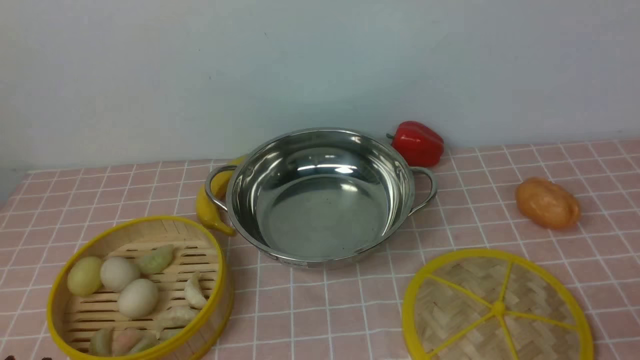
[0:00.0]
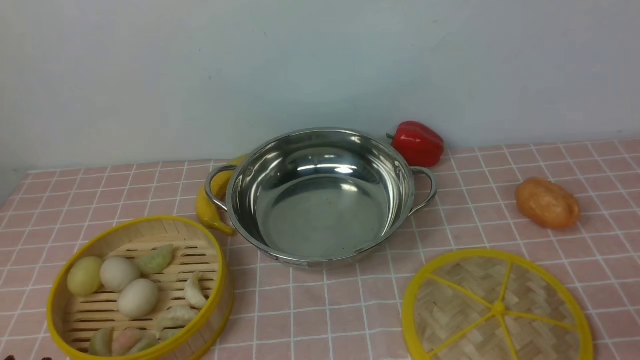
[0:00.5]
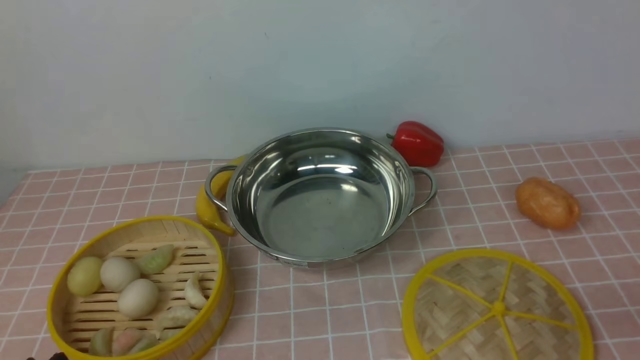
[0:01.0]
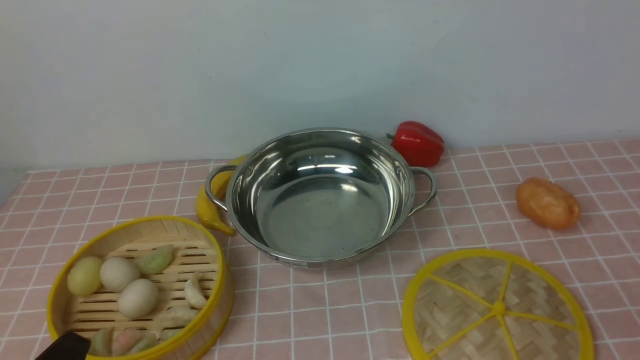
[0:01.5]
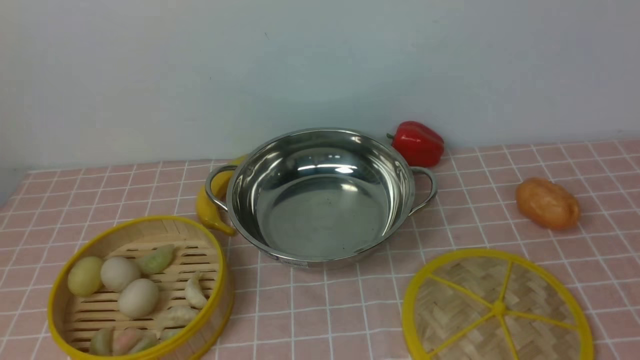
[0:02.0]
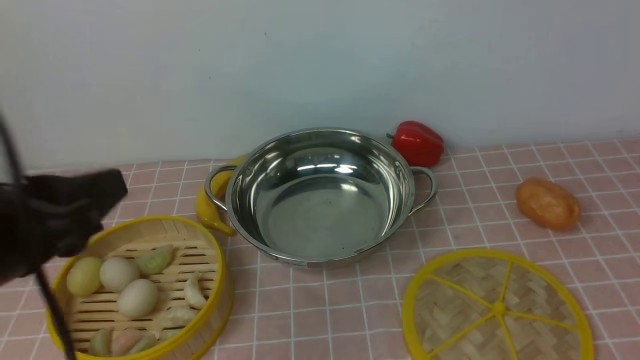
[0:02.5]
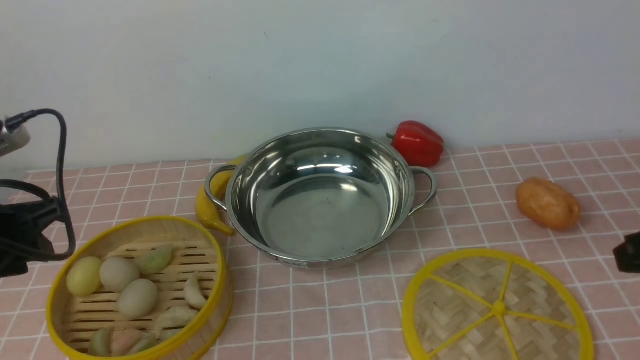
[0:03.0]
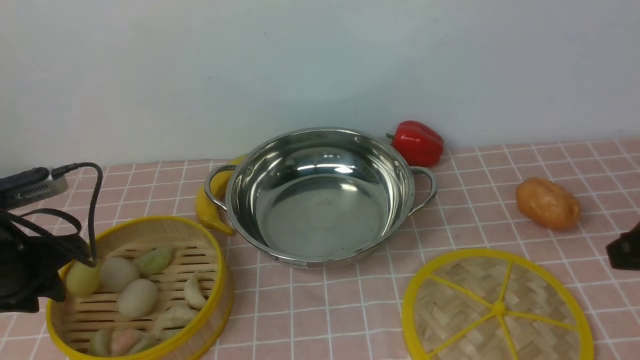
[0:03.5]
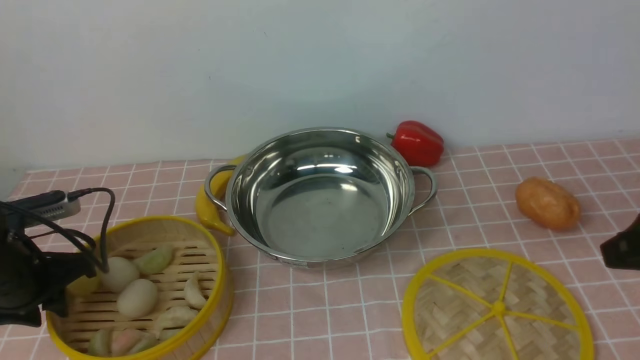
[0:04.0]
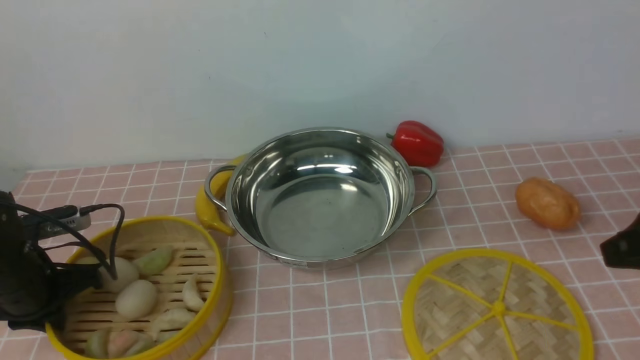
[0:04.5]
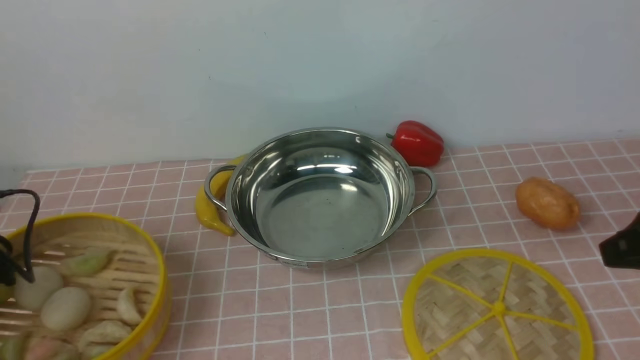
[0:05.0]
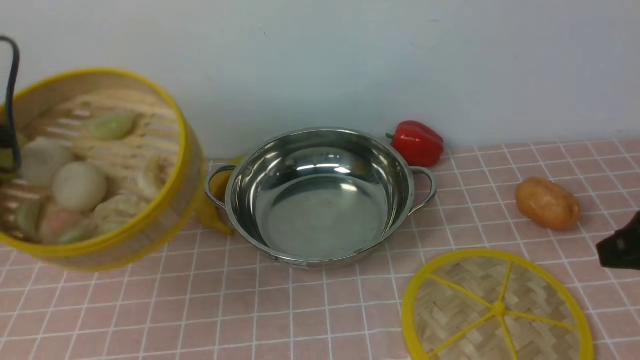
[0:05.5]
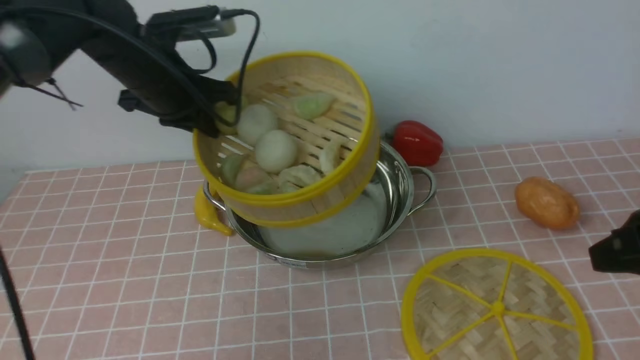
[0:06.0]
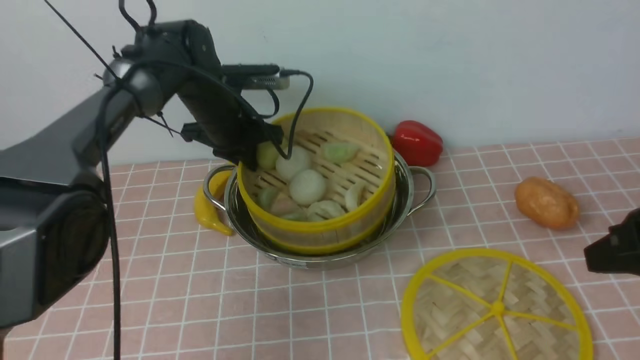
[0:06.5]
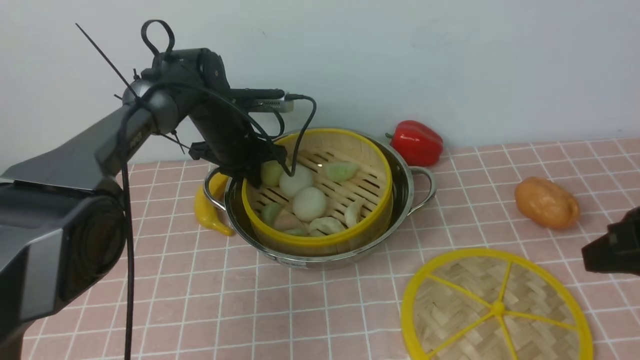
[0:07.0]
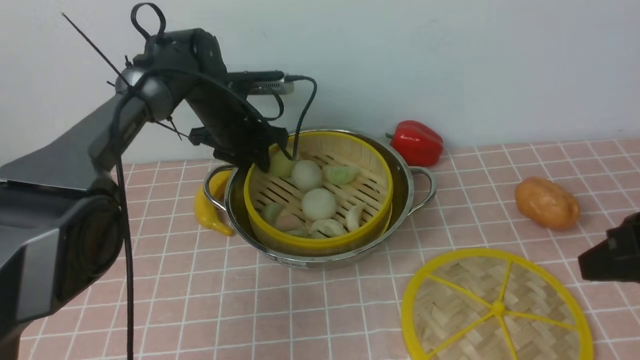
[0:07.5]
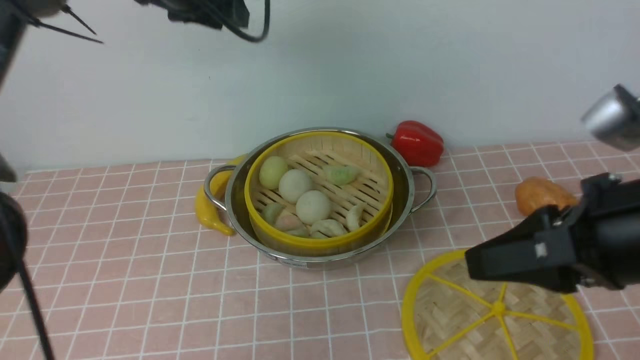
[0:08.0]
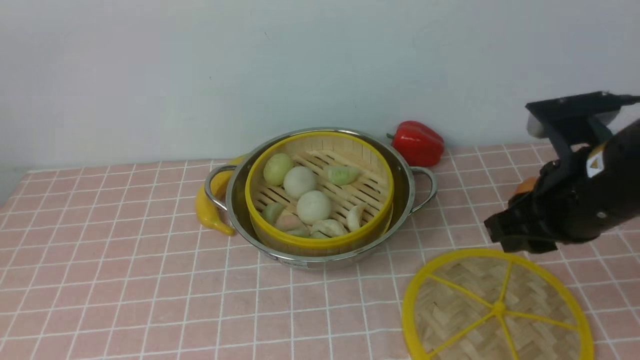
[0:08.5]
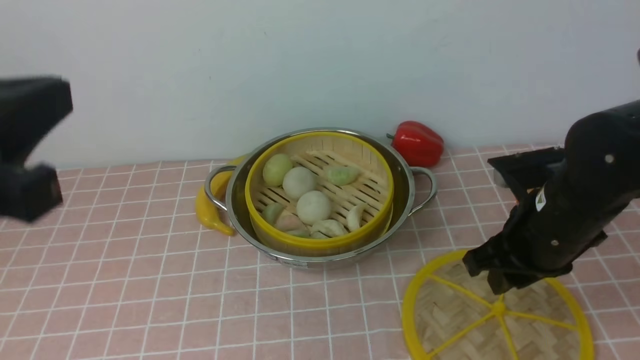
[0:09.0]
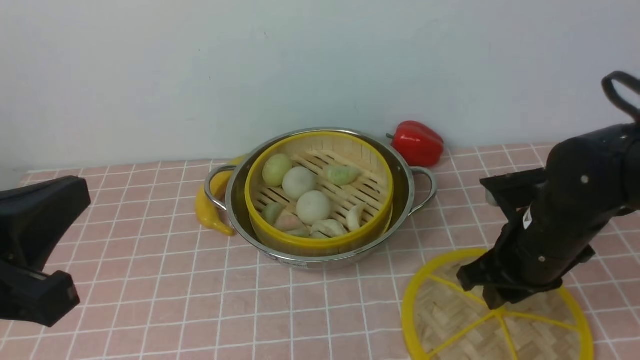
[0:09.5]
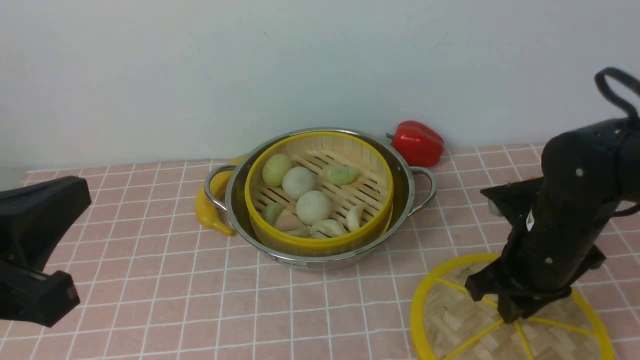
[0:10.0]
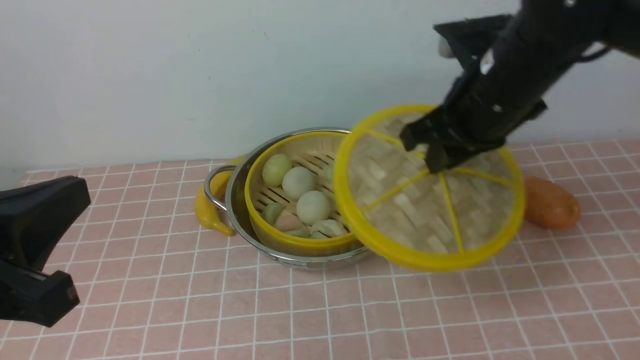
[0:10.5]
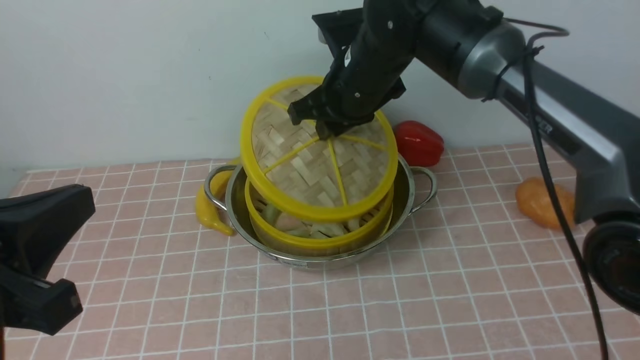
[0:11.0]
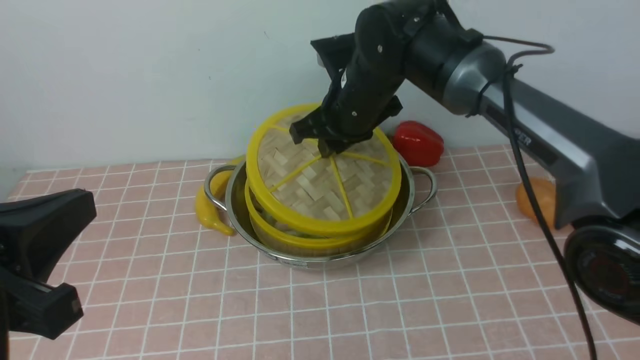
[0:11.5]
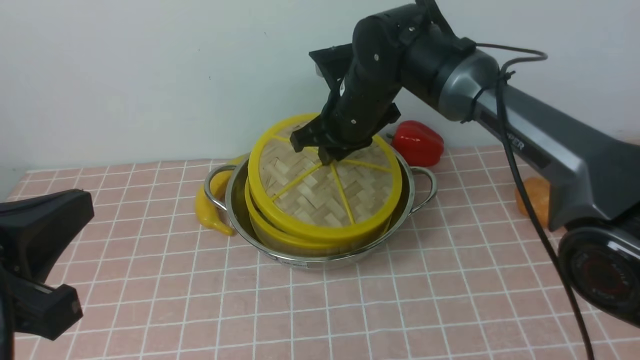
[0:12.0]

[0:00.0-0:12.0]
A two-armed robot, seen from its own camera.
Task of the whole recording: place the steamer in the pot on the pink tablecloth, and put the lid on the steamer.
Step, 0:00.0 to 0:04.5: use the left arm to lift the steamer closest to it.
Step, 0:05.0 to 0:07.5: use the left arm to put the steamer into the iron steamer pot in the middle.
Step, 0:08.0 to 0:10.0: use the right arm to lift the lid of the steamer.
0:02.0 to 0:04.0: The right gripper goes approximately 15 cm forward. Meanwhile the left gripper goes about 25 cm forward and downward.
0:04.0 to 0:06.0: The left gripper moves forward, upward and to the right, some 20 cm, and closes up.
0:06.0 to 0:08.0: The right gripper shifts roughly 5 cm to the left. The left gripper moves to the right, some 5 cm, goes downward and returns, roughly 15 cm each way, and opens.
0:08.0 to 0:10.0: The left gripper travels backward by roughly 35 cm, and closes its fingers; the right gripper travels downward and forward by approximately 15 cm.
0:10.0 to 0:12.0: The right gripper is displaced to the left and forward by roughly 20 cm.

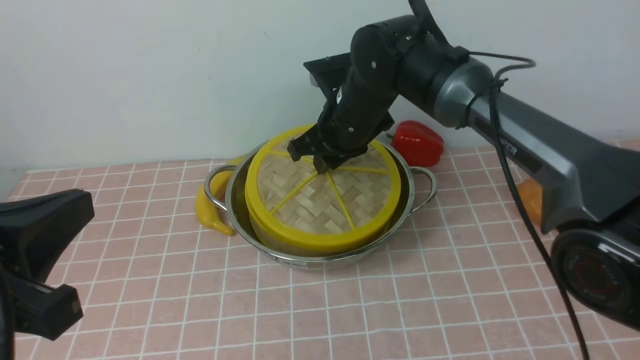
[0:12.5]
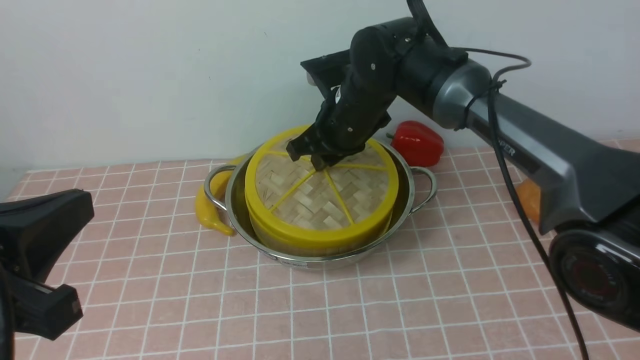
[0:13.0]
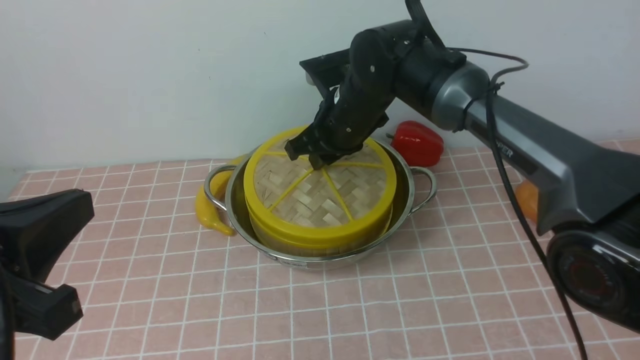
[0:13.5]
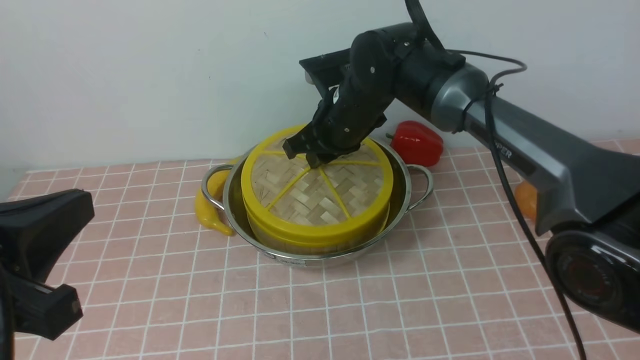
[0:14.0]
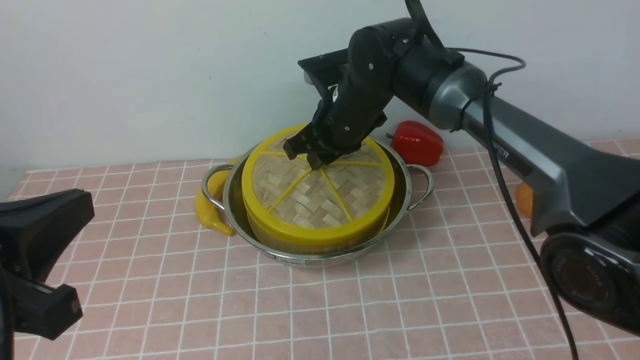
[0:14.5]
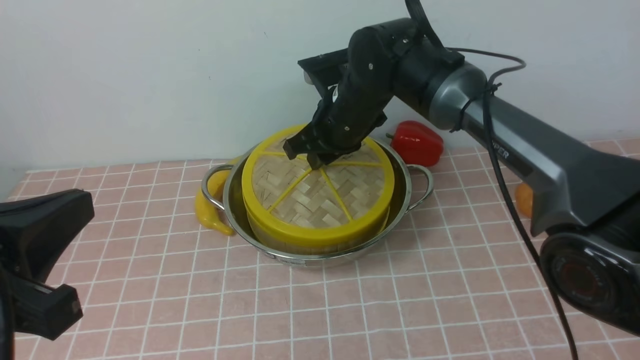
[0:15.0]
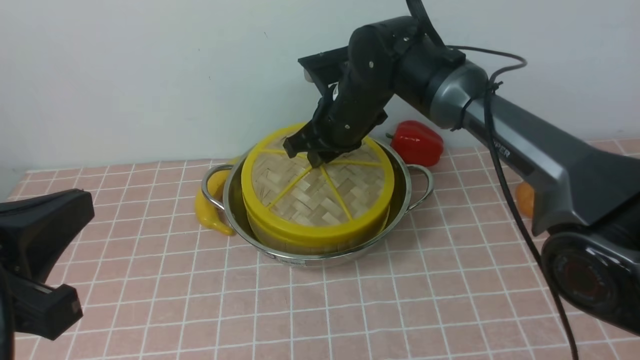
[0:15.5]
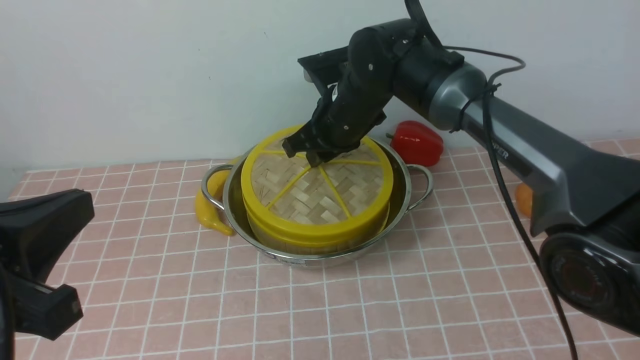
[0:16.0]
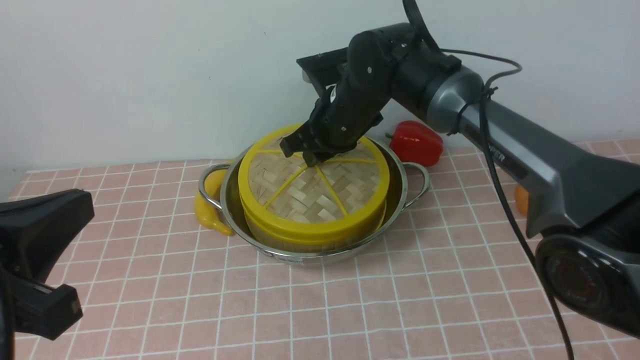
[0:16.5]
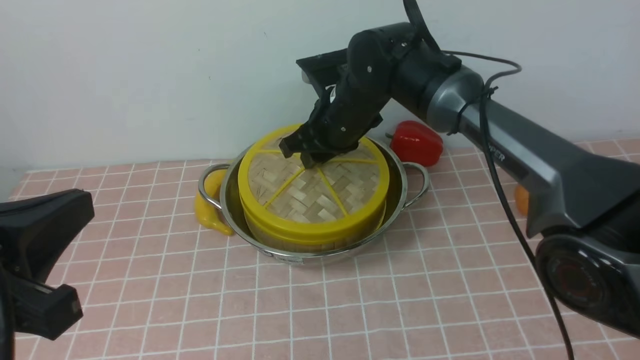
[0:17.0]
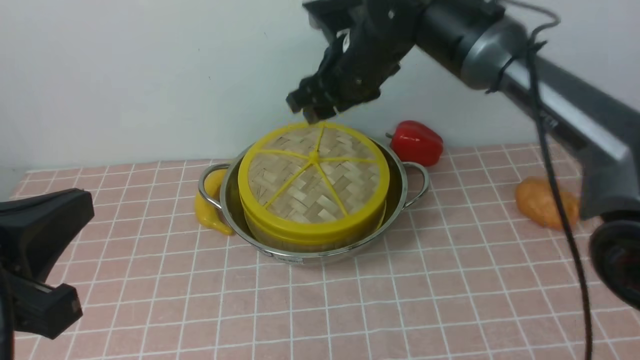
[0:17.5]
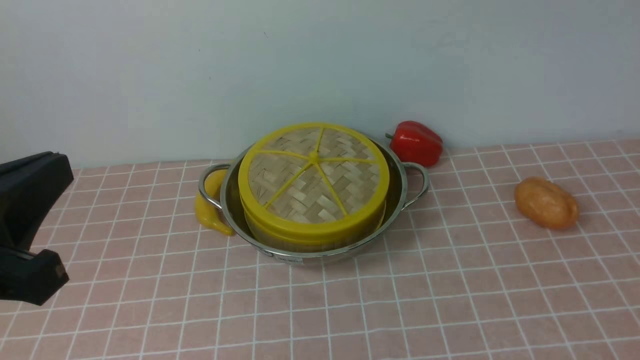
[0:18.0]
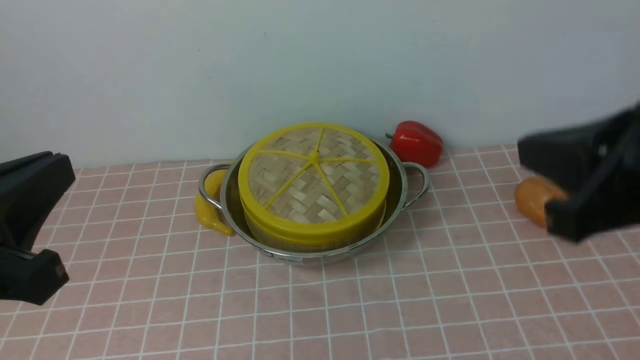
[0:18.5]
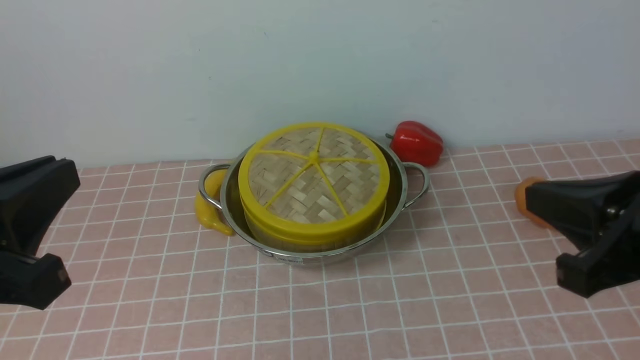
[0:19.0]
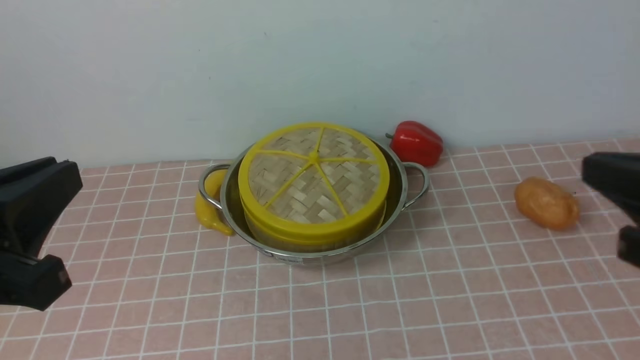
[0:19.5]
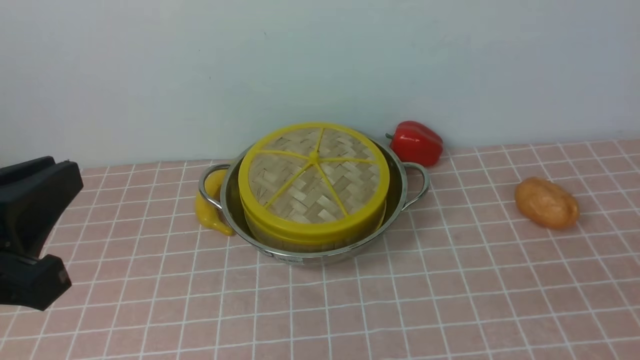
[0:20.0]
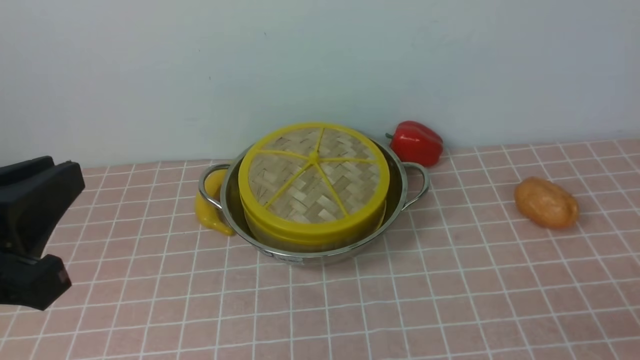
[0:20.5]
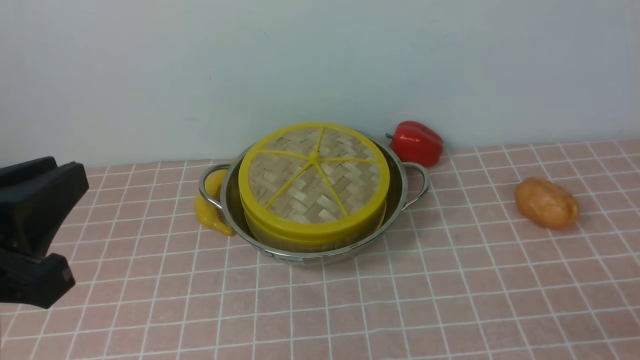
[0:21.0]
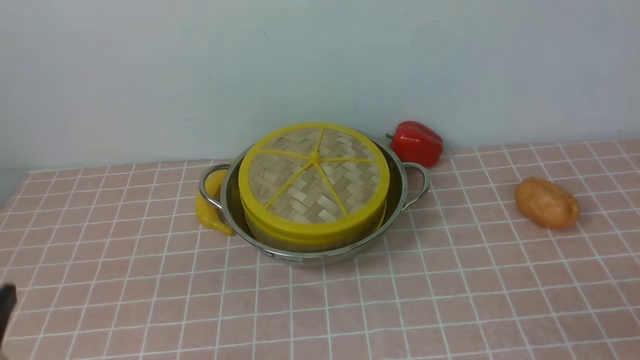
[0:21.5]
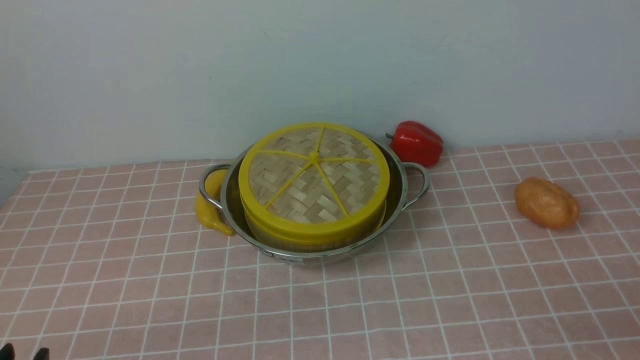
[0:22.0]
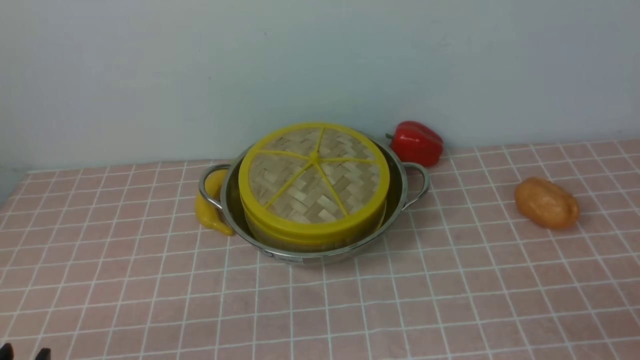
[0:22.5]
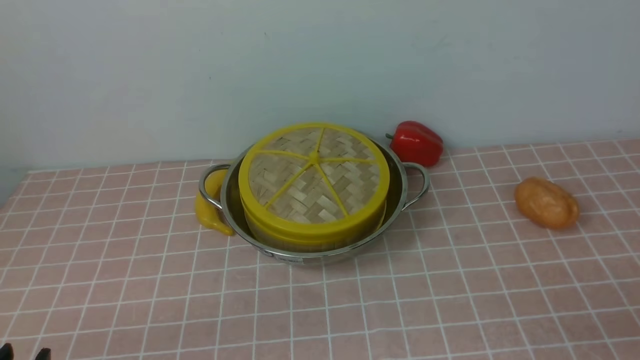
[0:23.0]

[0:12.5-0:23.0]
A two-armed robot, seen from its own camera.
Task of the whole recording: place the steamer in the pot on the pink tablecloth, and put the lid on the steamer.
Step, 0:12.5 to 0:17.0: use the right arm to place the steamer lid on the steamer.
0:12.5 to 0:14.5: Both grippers stay about where they are.
0:14.5 to 0:16.5: The two grippers keep their place.
0:16.5 to 0:19.0: The right gripper shifts approximately 35 cm backward and to the right, reaches roughly 30 cm upward, then returns, and closes.
0:19.0 to 0:21.0: The right gripper travels downward, to the right and backward by approximately 20 cm, and opens.
0:21.0 to 0:23.0: The left gripper shifts about 15 cm downward.
